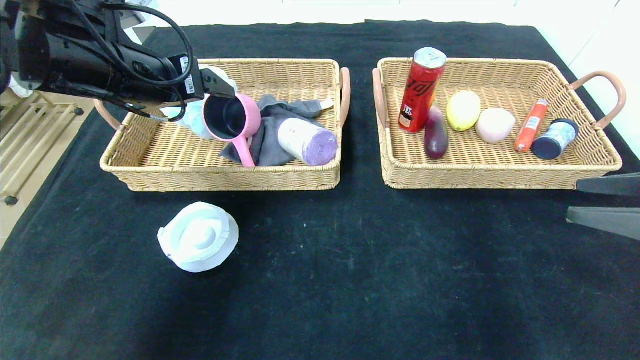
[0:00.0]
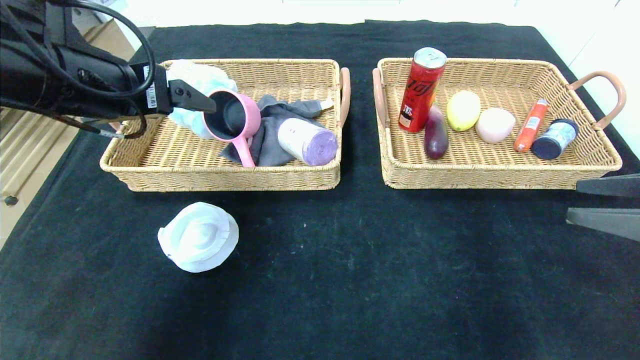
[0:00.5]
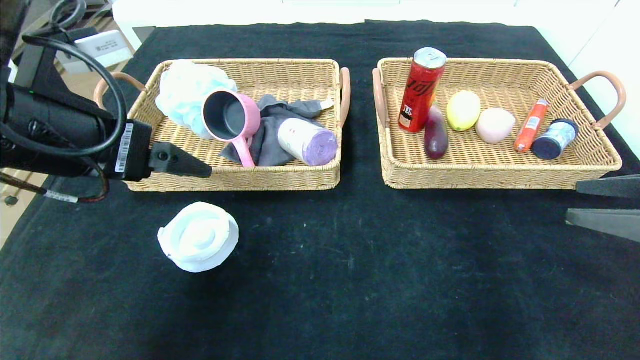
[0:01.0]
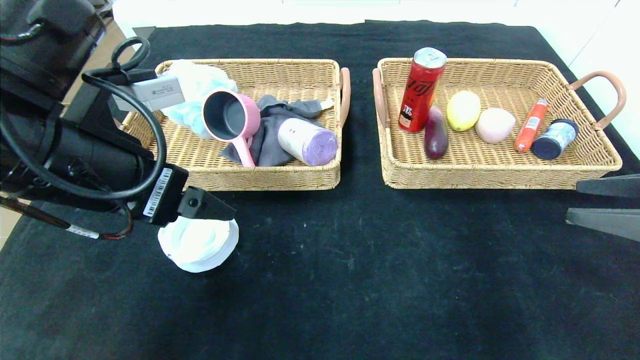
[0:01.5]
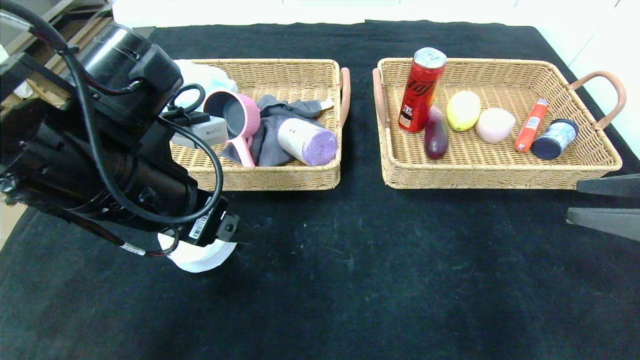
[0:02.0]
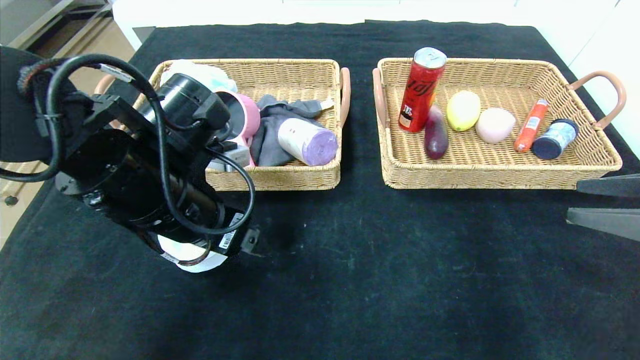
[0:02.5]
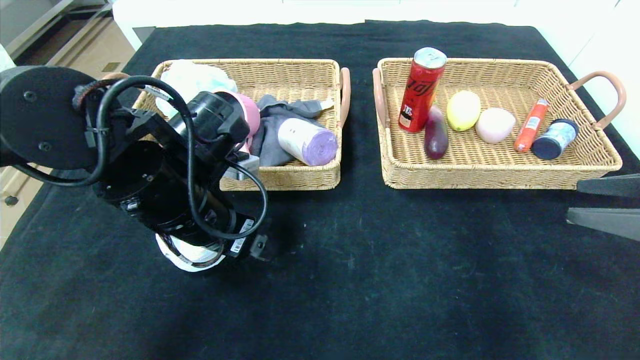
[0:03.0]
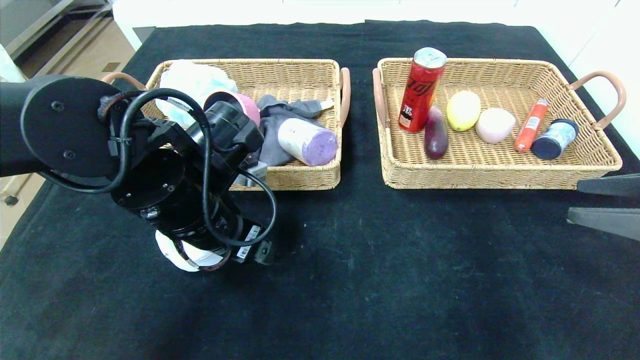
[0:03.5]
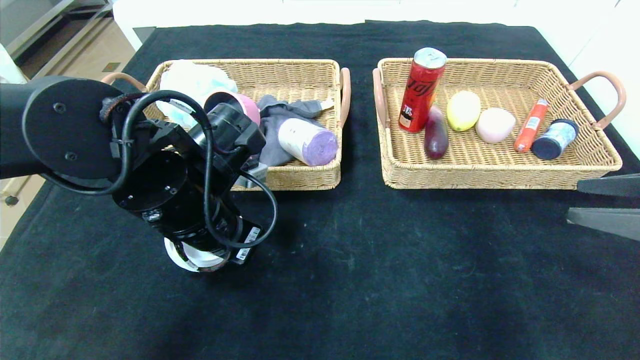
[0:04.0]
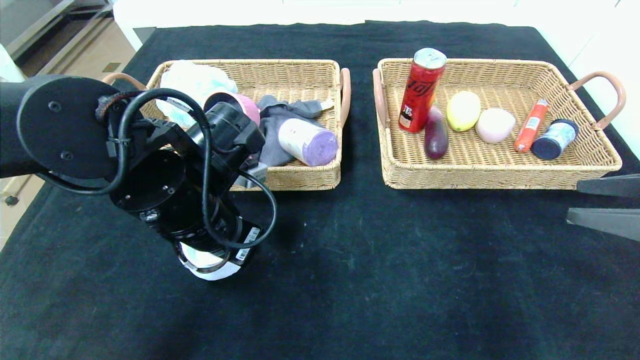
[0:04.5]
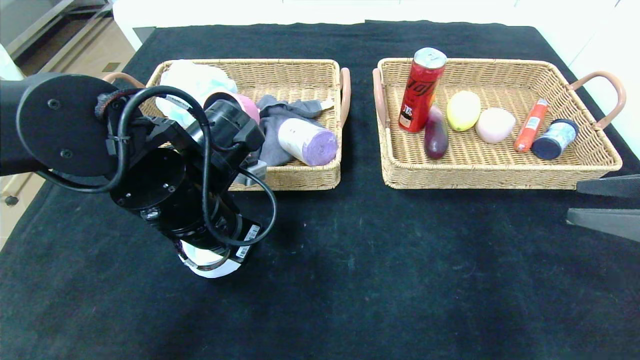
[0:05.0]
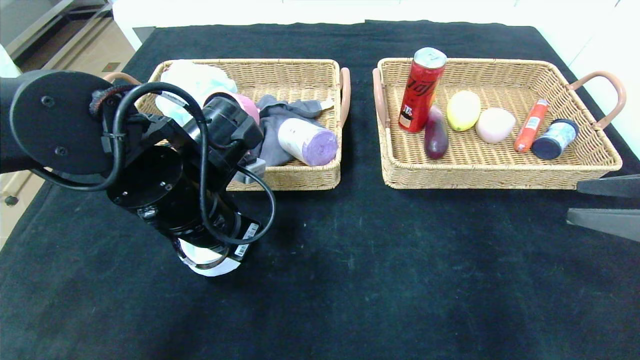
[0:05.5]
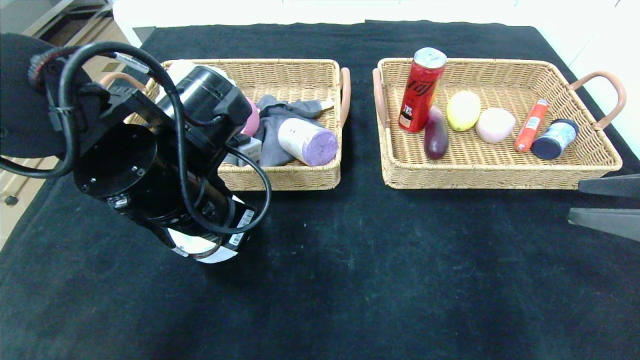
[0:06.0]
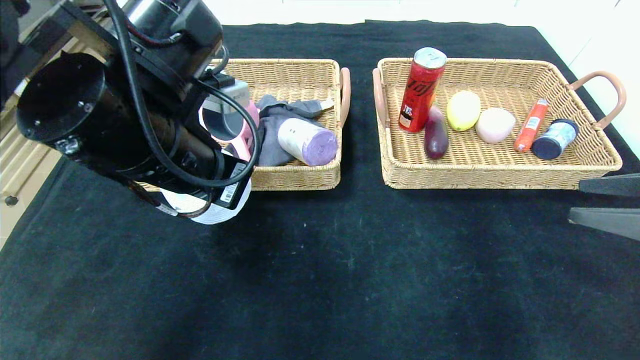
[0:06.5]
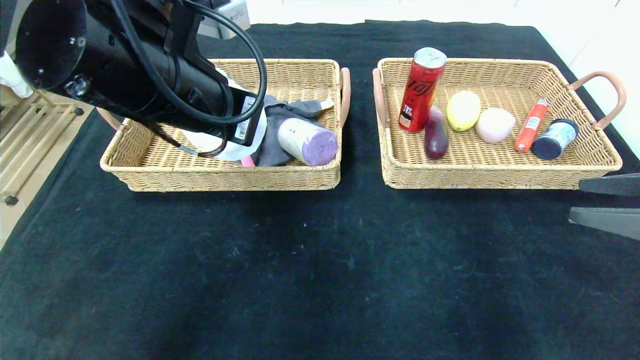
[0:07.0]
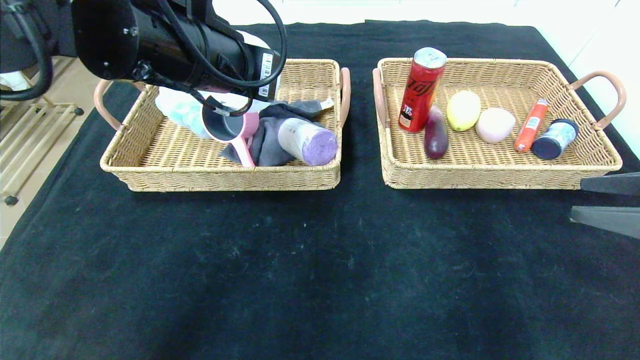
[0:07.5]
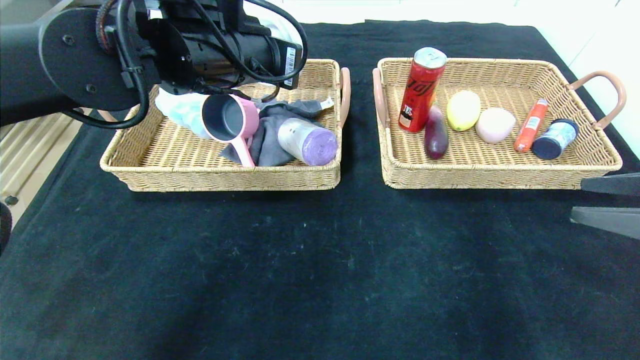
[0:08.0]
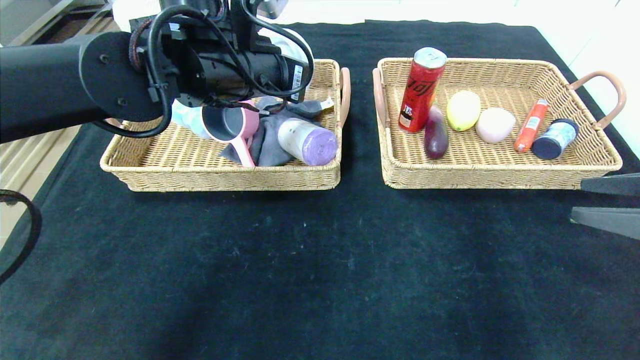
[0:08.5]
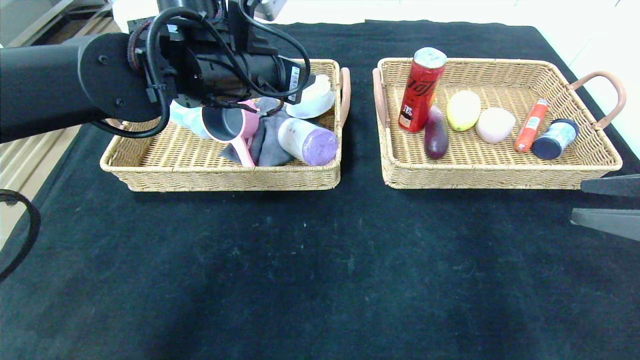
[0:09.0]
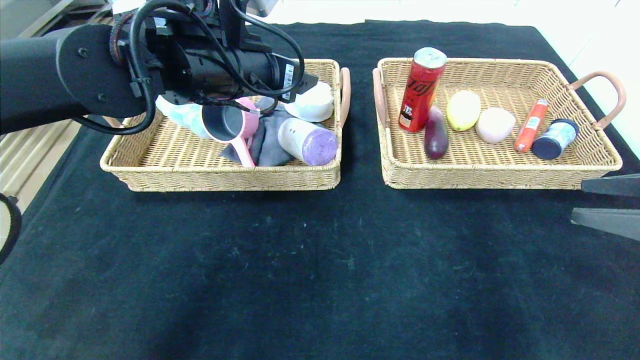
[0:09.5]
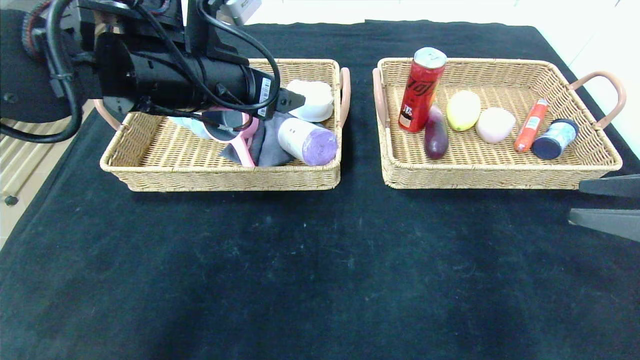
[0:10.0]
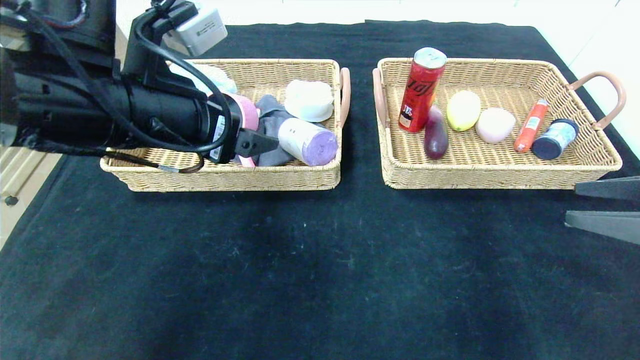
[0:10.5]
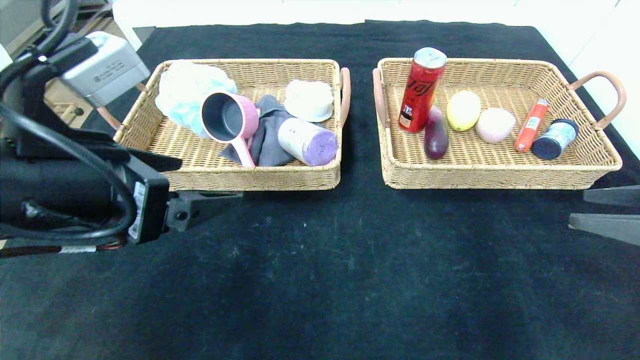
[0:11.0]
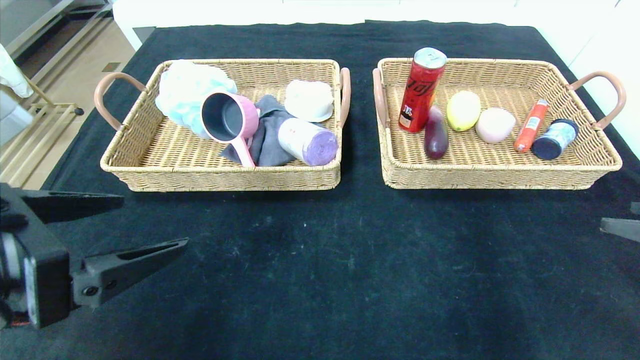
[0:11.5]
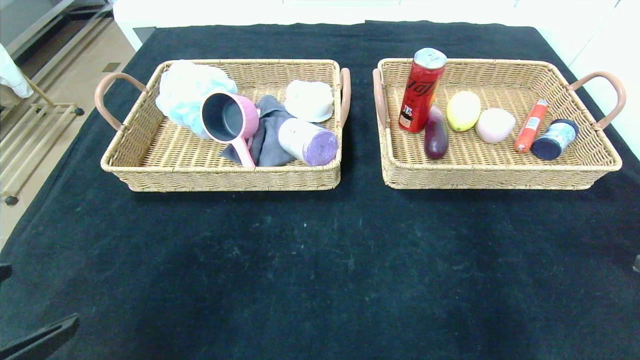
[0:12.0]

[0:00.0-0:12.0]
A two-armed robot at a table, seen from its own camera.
0:00.0 to 0:02.0: The left gripper heads backward, downward and to the right, covering roughly 15 cm.
0:02.0 to 0:04.0: The left gripper travels downward by about 5 cm, and closes.
0:04.0 to 0:06.0: The grippers make only small movements.
0:06.0 to 0:08.0: The left gripper travels upward and forward by some 15 cm.
0:08.0 to 0:10.0: The left gripper opens up.
0:10.0 to 0:12.0: The right gripper moves backward, roughly 5 cm. Meanwhile the left gripper is displaced backward and to the left by roughly 30 cm.

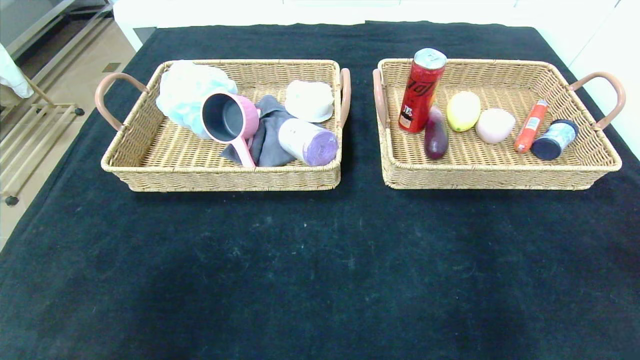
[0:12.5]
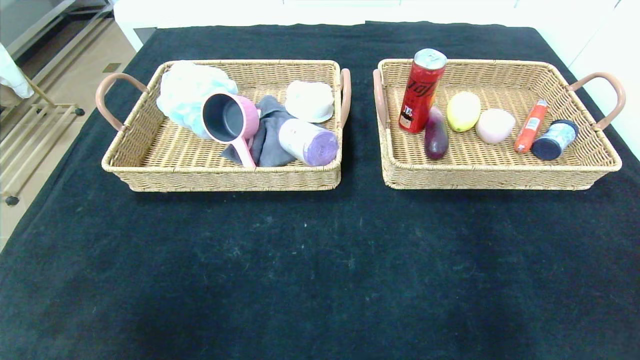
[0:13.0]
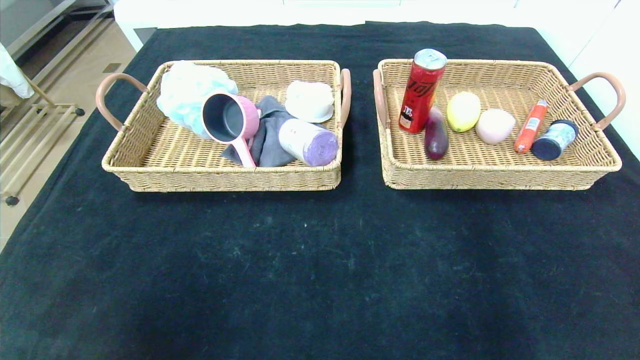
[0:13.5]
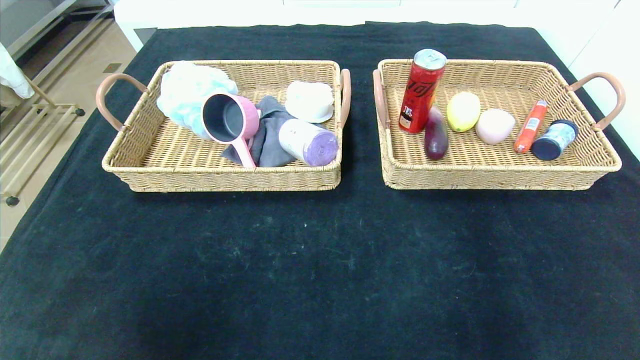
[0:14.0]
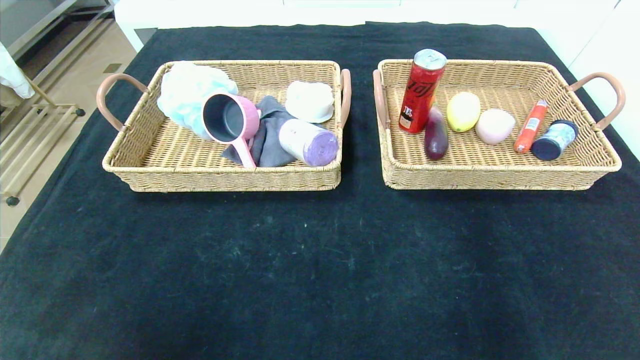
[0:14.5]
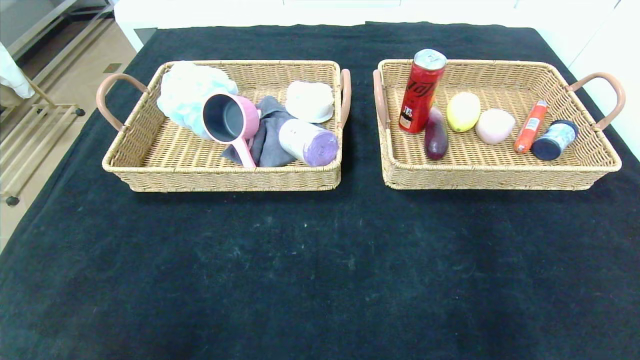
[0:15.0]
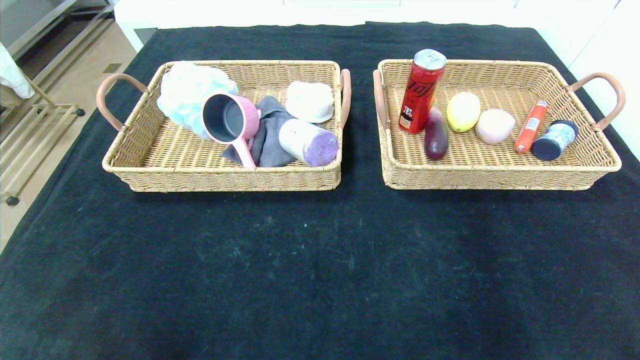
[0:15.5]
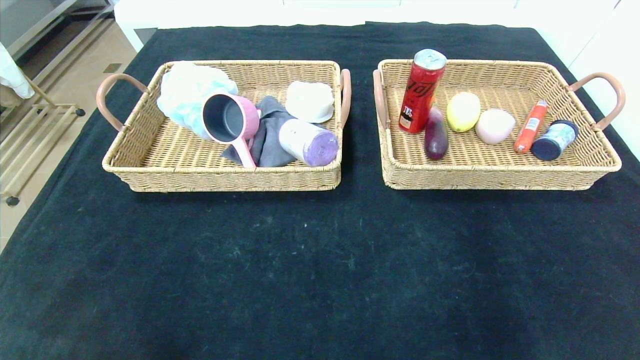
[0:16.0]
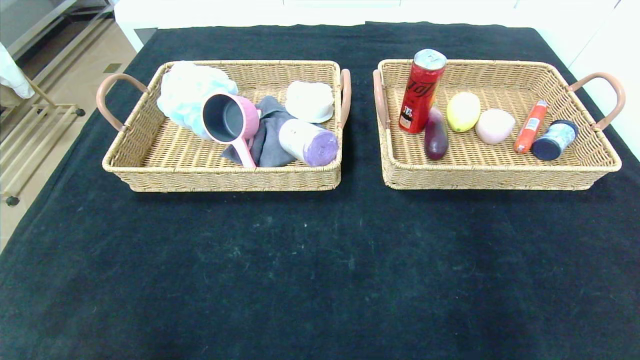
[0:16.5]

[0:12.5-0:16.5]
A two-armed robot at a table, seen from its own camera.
0:12.5 to 0:14.5: The left gripper moves backward, roughly 5 cm. The right gripper travels backward and downward by roughly 15 cm, and closes its fingers.
